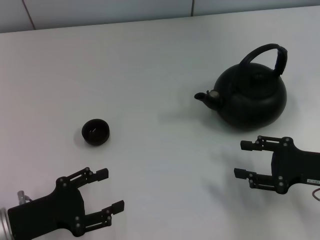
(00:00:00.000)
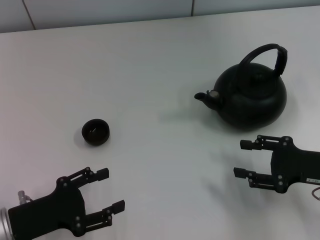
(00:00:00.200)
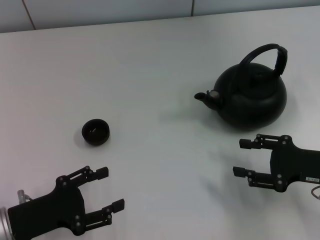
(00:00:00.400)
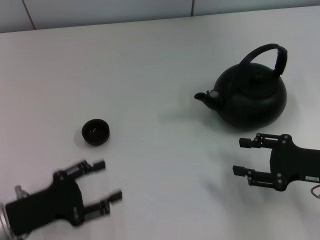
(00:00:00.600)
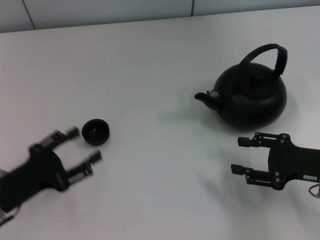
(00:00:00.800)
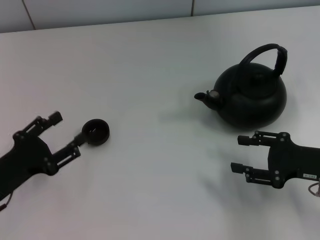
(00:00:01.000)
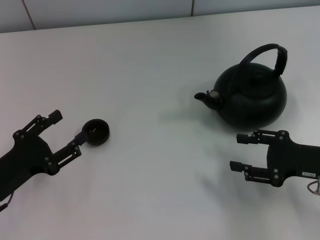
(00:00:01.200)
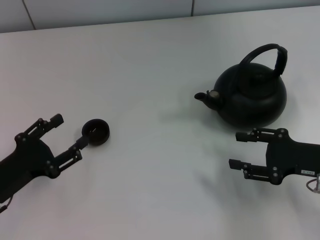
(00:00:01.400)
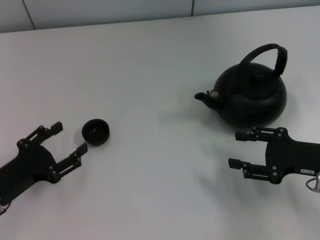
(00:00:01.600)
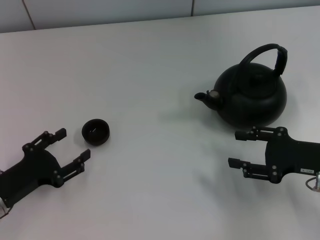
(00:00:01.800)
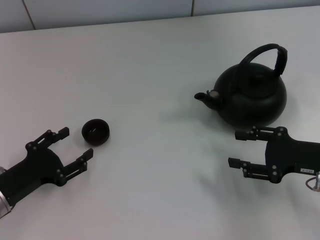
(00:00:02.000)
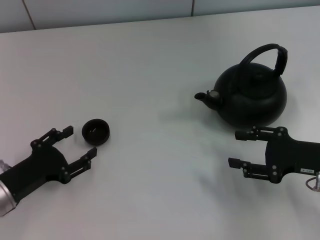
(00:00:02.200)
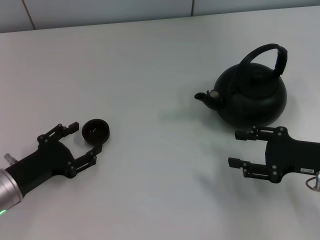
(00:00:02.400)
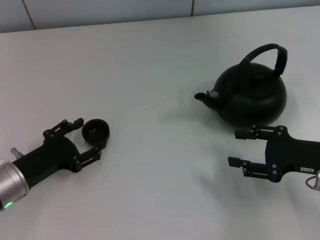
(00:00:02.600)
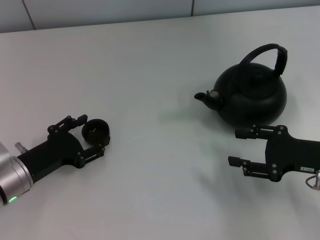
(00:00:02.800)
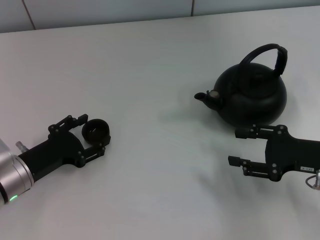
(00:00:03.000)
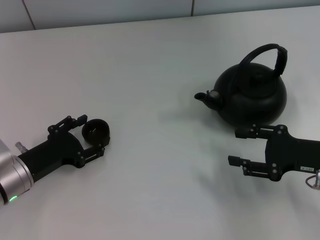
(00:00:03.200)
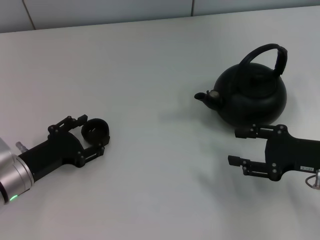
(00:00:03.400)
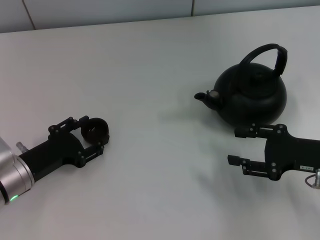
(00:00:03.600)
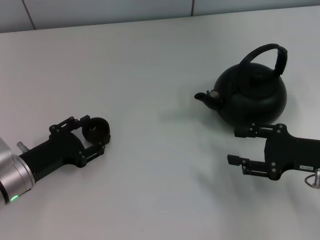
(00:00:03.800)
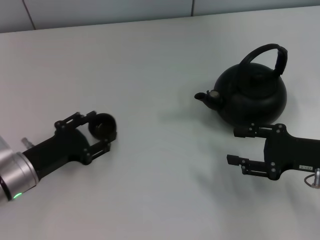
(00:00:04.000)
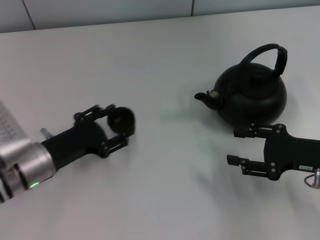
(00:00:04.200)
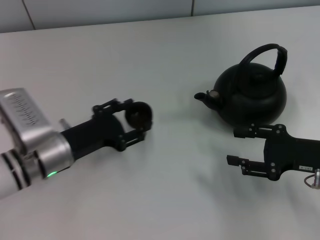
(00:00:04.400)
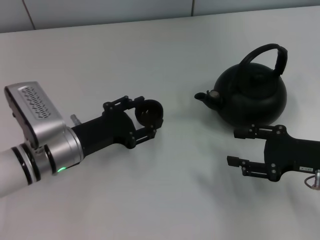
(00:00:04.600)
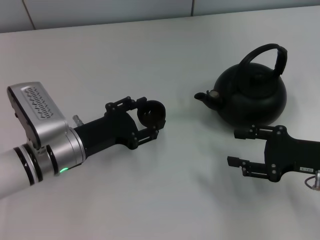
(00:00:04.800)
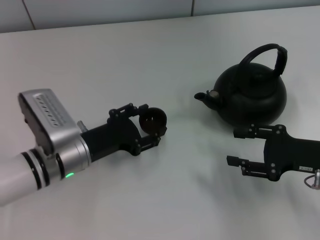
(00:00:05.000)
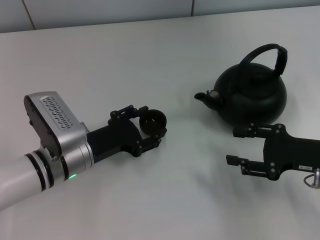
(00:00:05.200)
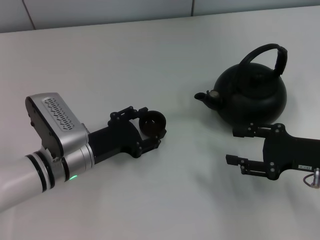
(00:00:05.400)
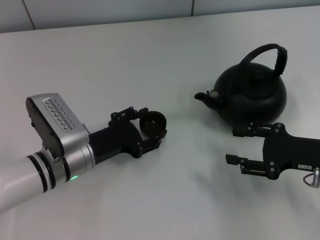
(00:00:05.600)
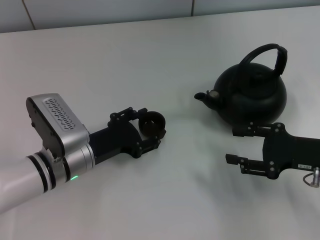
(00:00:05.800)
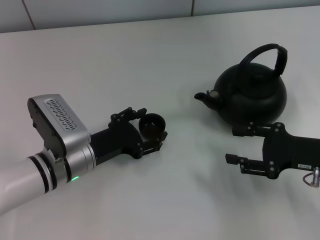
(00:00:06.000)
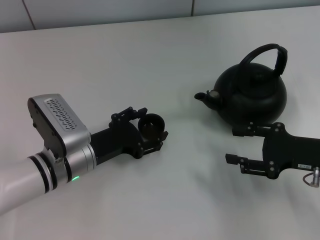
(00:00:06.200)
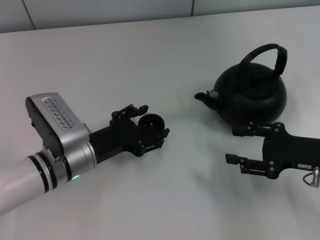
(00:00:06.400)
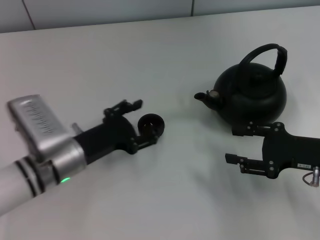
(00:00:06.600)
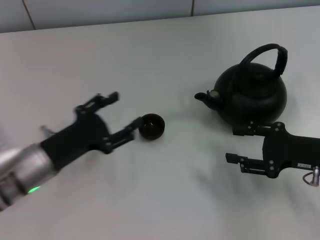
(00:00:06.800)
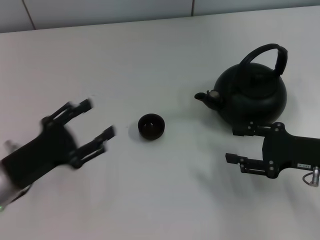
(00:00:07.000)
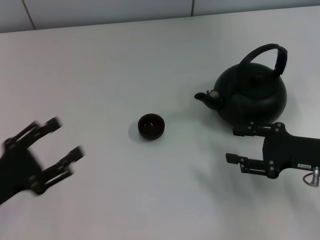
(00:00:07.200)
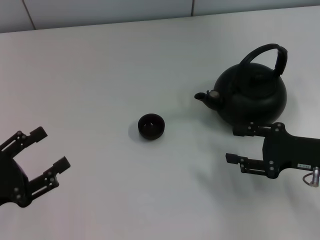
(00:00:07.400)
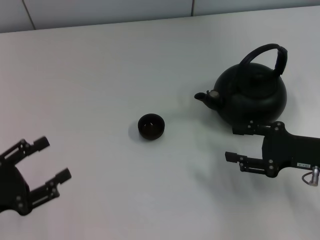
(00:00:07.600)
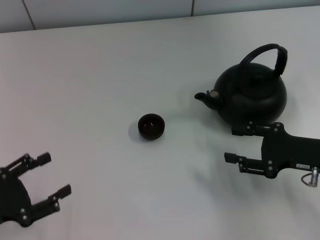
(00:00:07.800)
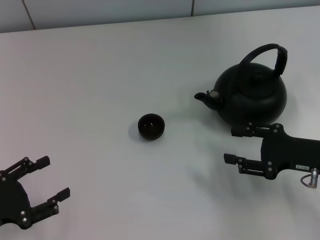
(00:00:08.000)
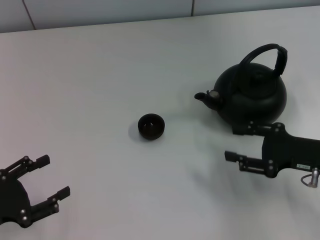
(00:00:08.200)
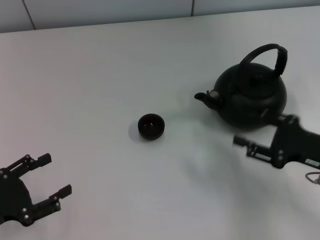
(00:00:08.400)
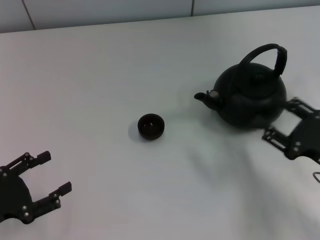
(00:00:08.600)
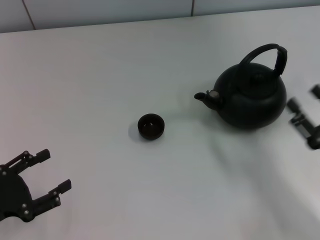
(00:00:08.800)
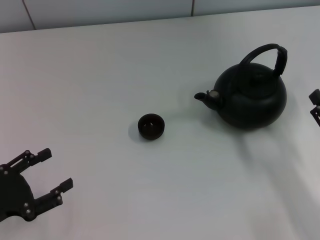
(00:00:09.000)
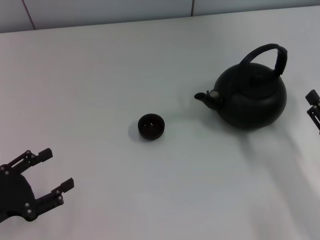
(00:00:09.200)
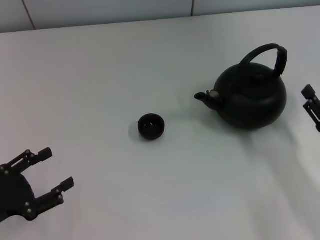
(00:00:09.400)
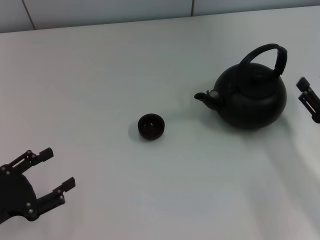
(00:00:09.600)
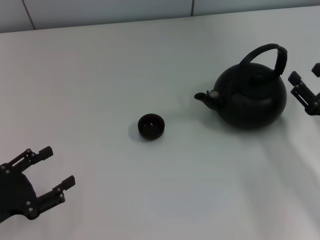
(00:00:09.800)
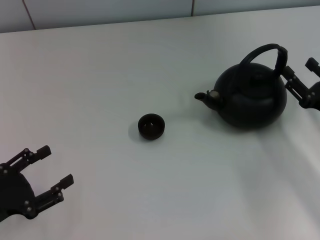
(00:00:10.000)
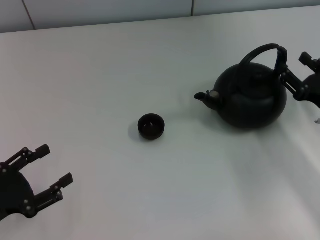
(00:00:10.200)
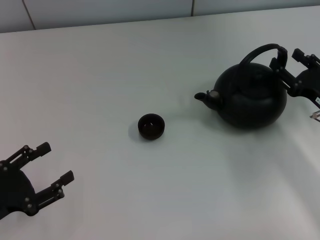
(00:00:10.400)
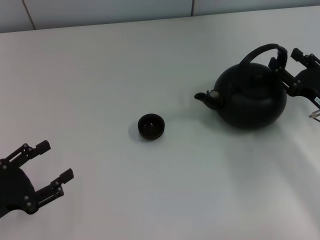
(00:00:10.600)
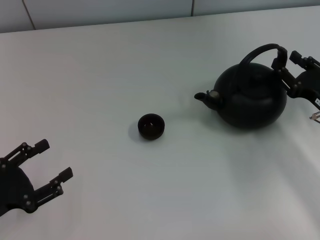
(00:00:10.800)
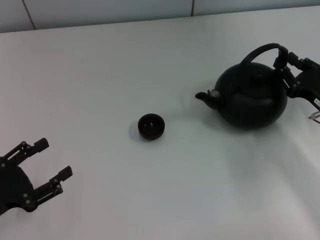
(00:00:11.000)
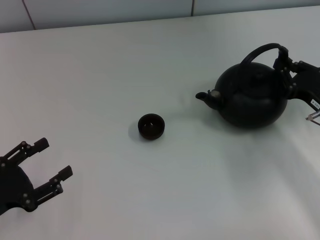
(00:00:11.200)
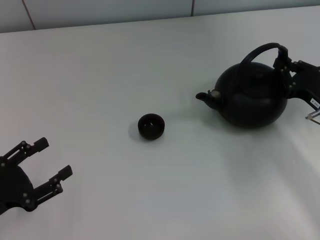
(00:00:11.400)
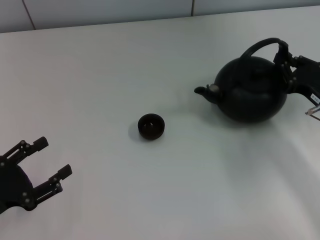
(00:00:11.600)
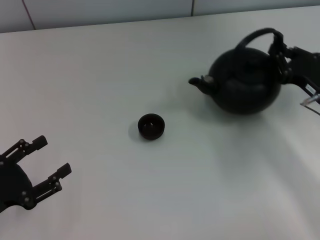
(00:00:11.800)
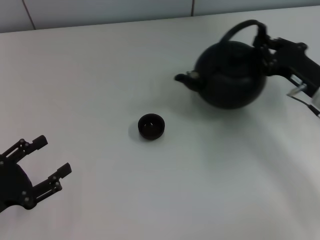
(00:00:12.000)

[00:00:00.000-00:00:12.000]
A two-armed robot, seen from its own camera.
Task of the whole recording: Grasp the handle of the teapot with one hand and pour tea into the teacup.
Step, 00:00:00.000 to 00:00:03.800: Pick up the teacup with the left gripper.
Step, 00:00:04.000 to 00:00:06.600: Place the teacup in the center of view with the left gripper.
Step, 00:00:07.000 to 00:00:11.600: Pick up the teapot with the right gripper.
00:00:01.600 to 00:00:03.000: The left gripper ends up approximately 5 cm from where it was.
00:00:03.000 to 00:00:04.400: The left gripper heads to the right, covering some 5 cm.
00:00:04.400 to 00:00:06.000: The grippers move only a little.
00:00:06.000 to 00:00:07.600: The left gripper travels to the left and backward by about 20 cm.
00:00:07.600 to 00:00:09.000: The right gripper shifts roughly 10 cm backward.
00:00:09.000 to 00:00:10.400: The right gripper travels forward by some 10 cm.
00:00:10.400 to 00:00:12.000: The right gripper ends up some 5 cm from where it was, and closes.

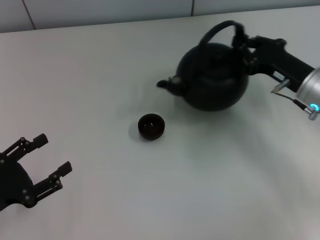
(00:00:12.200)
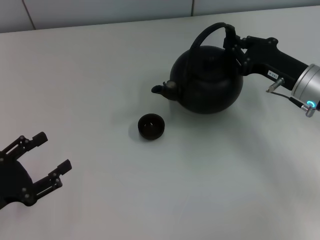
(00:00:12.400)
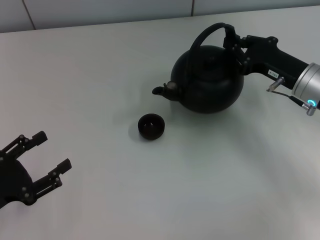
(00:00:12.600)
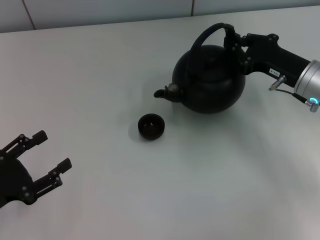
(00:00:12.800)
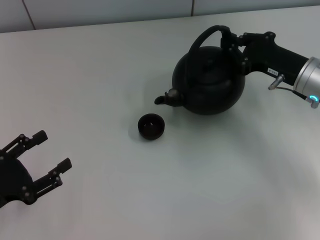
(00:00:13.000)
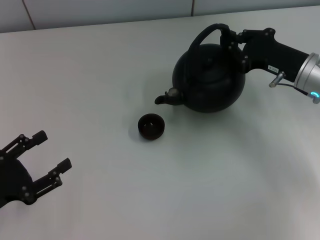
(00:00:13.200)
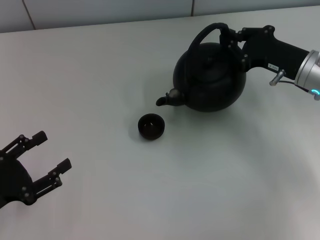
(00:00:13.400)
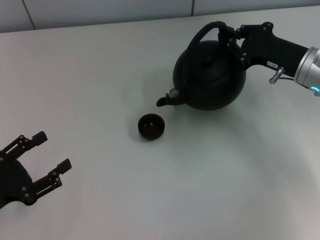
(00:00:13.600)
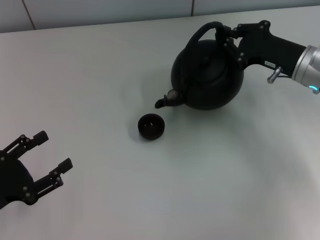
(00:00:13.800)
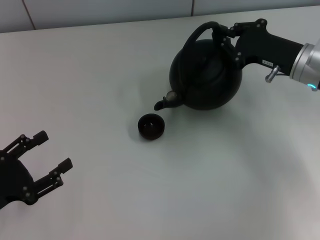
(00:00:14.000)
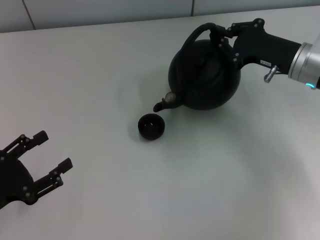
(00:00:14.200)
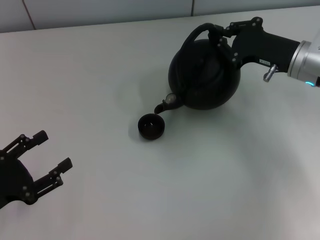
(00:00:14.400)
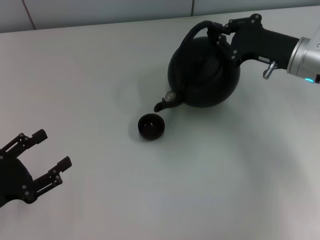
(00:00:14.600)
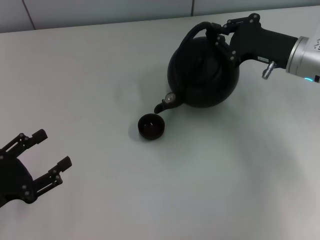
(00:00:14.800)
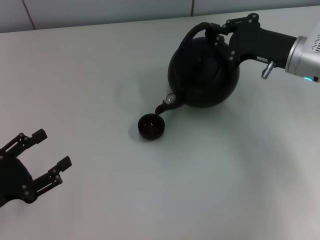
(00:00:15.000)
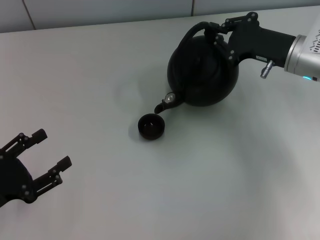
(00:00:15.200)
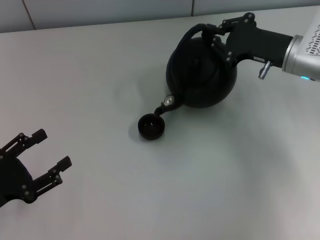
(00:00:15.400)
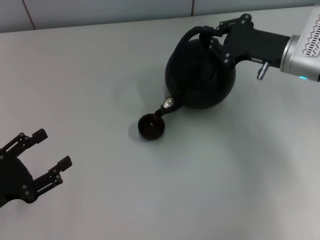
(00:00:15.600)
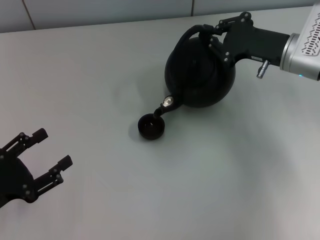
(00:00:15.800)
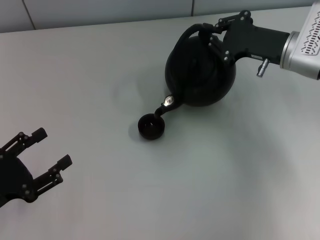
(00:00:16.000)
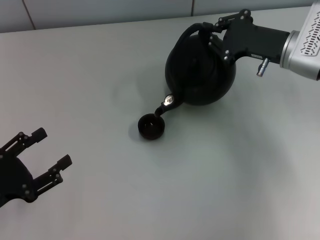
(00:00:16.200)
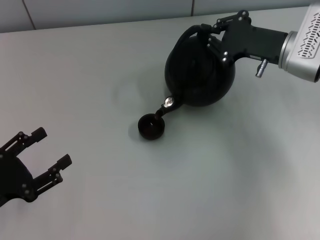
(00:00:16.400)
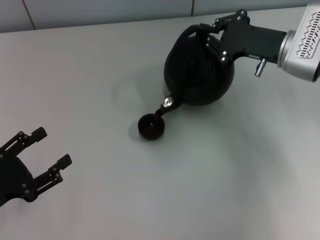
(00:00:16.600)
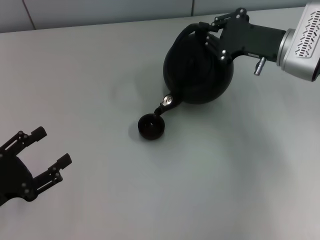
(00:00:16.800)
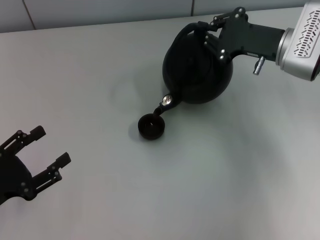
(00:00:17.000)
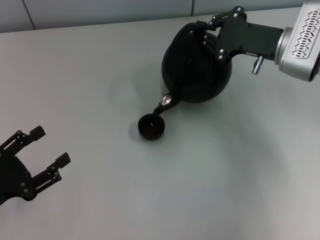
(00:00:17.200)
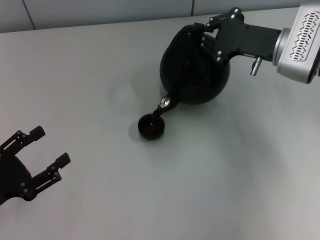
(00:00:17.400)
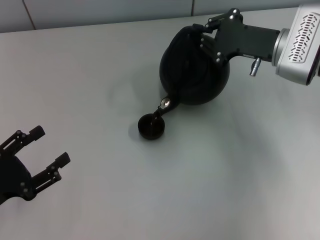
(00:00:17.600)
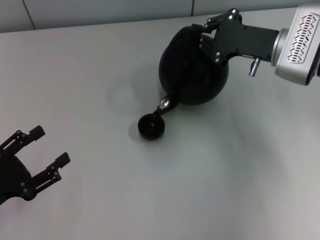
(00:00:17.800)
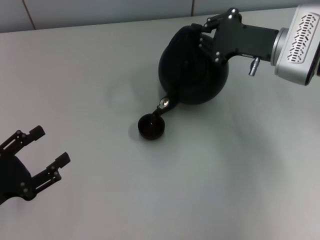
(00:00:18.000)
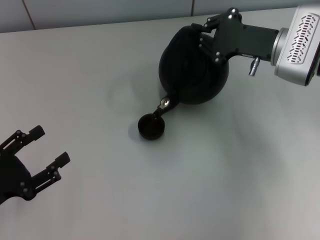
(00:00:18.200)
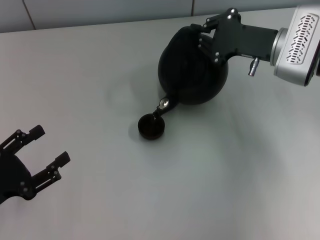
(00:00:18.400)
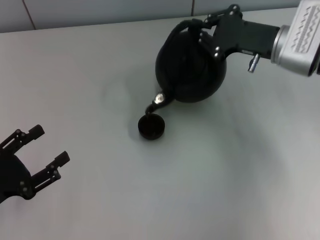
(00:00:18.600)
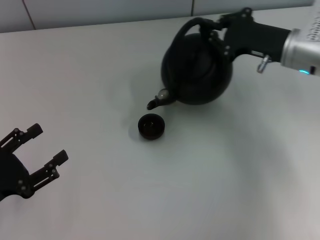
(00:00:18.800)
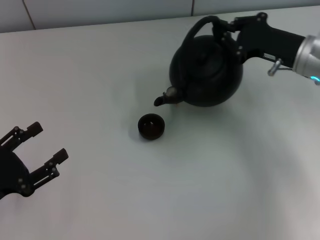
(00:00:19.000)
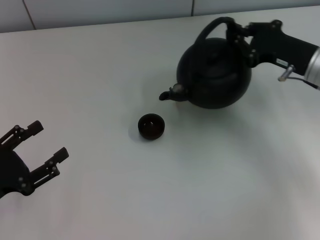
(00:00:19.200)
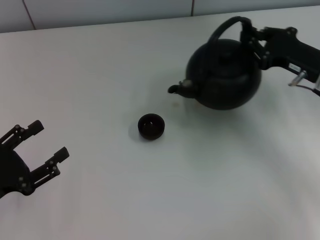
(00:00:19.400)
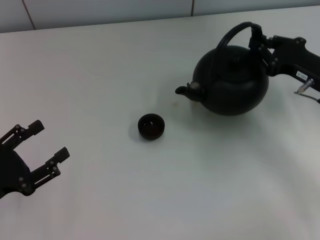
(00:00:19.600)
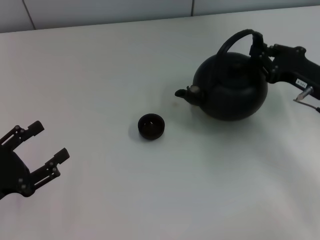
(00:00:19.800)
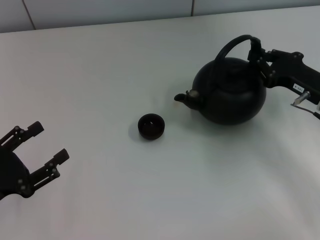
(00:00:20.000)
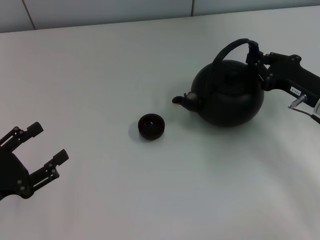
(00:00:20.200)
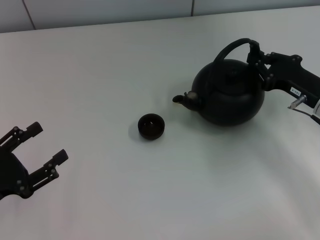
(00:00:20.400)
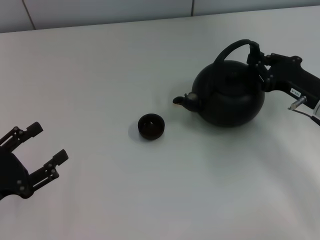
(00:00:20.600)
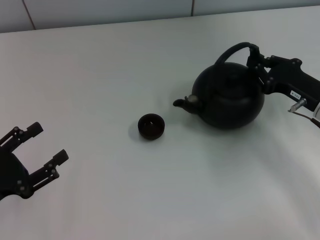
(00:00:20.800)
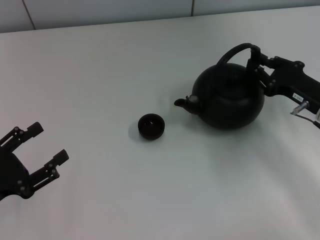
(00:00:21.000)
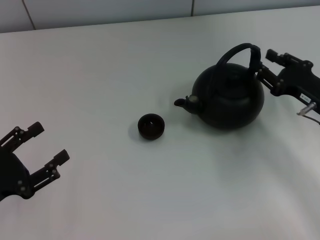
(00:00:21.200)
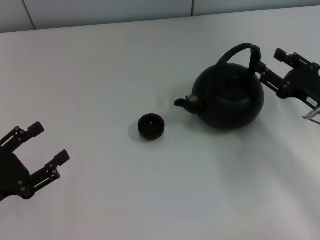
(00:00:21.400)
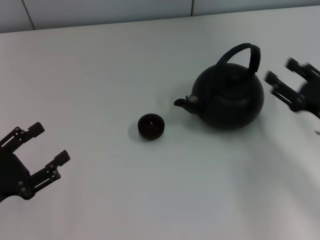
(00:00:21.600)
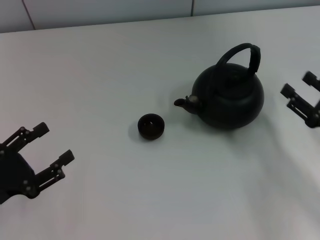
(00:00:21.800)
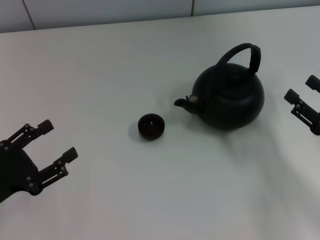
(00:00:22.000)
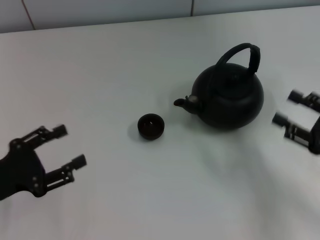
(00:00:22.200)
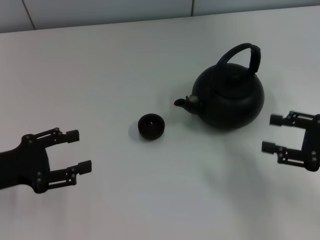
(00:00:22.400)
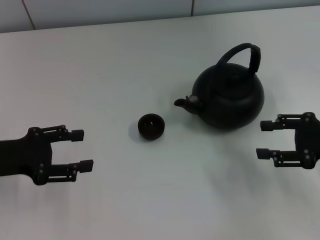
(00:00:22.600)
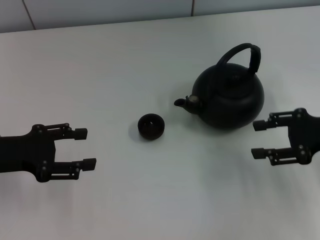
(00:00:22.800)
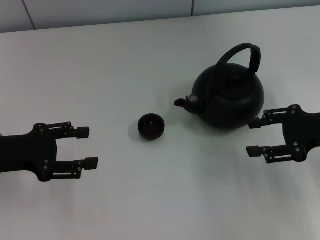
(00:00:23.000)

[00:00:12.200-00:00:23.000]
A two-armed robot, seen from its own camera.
Task of the whole recording: Grasp the handle of the teapot with one hand and pour tea into the teacup.
Step, 00:00:19.200 to 00:00:21.400: Put down the teapot with the right gripper.
00:00:13.800 to 00:00:15.200: The grippers make only small movements.
00:00:15.200 to 00:00:16.800: The grippers move only a little.
00:00:16.800 to 00:00:18.400: Both grippers stay about where they are.
00:00:18.400 to 00:00:20.000: The right gripper moves backward, to the right and downward, approximately 10 cm.
00:00:20.000 to 00:00:21.400: The right gripper opens.
00:00:21.400 to 00:00:23.000: The right gripper is displaced upward by some 5 cm, moves roughly 10 cm backward and comes back, and opens up. The left gripper heads forward and upward, covering about 10 cm.
